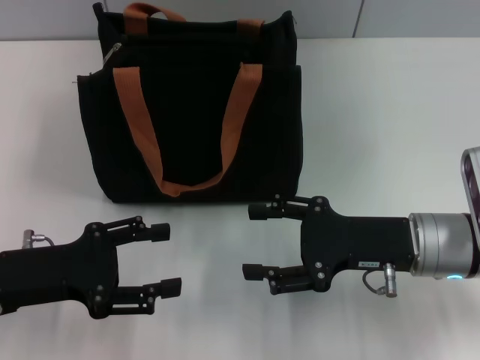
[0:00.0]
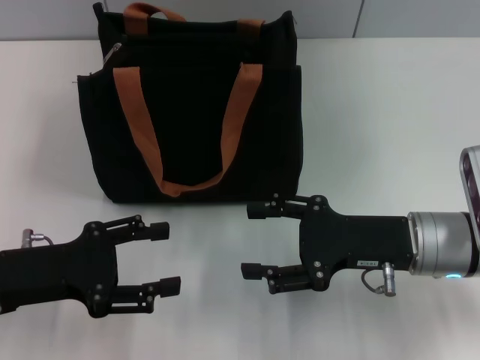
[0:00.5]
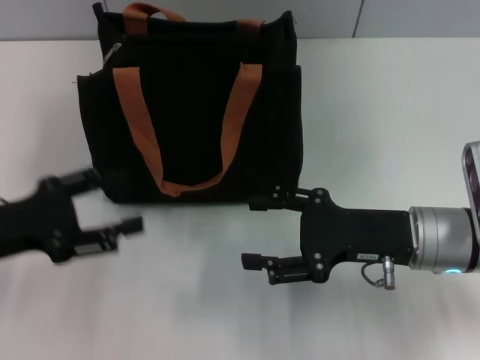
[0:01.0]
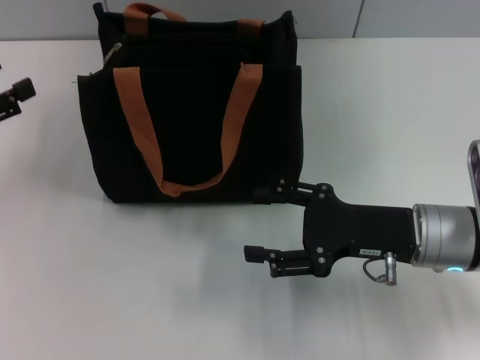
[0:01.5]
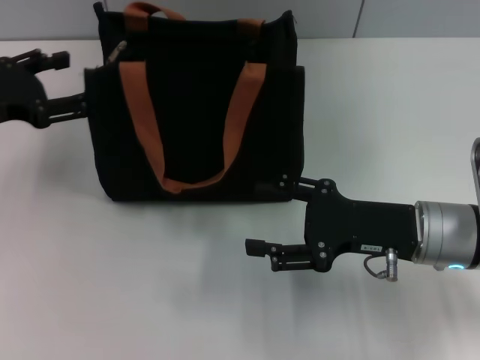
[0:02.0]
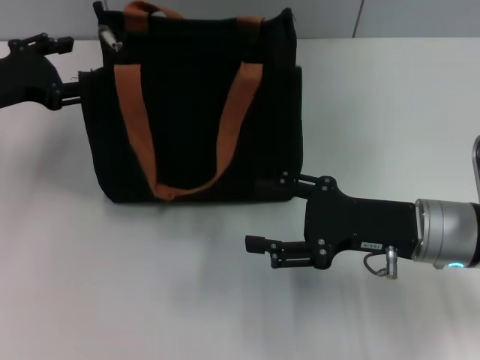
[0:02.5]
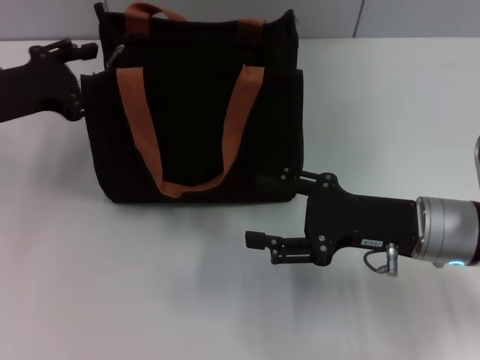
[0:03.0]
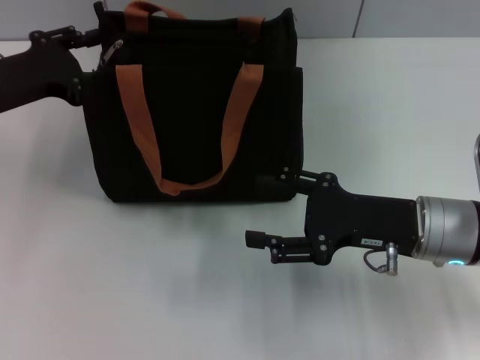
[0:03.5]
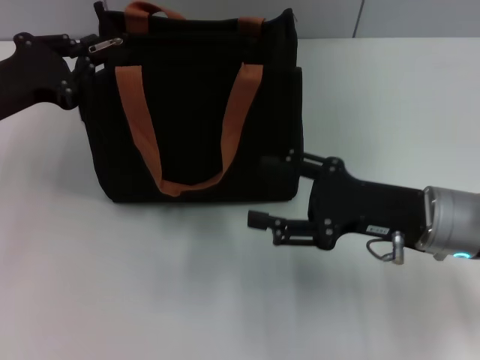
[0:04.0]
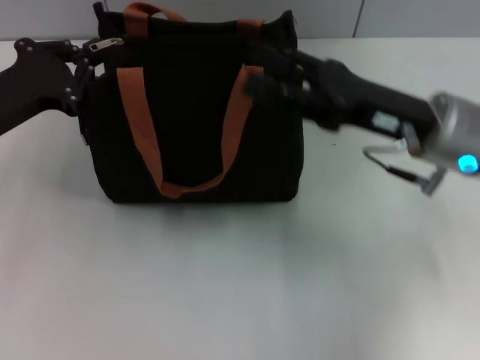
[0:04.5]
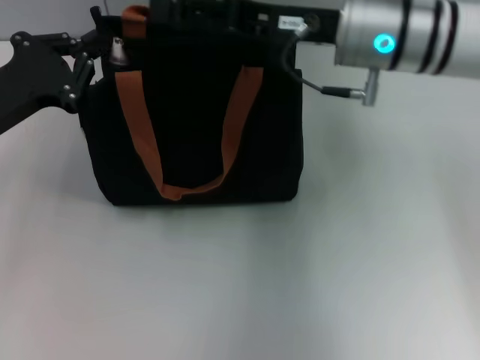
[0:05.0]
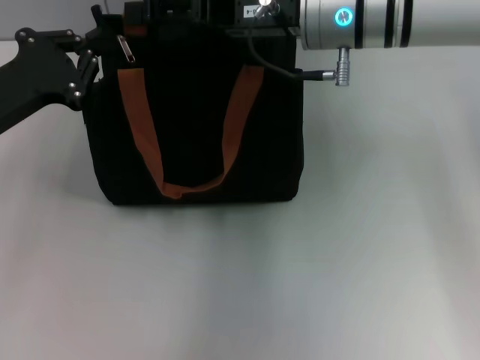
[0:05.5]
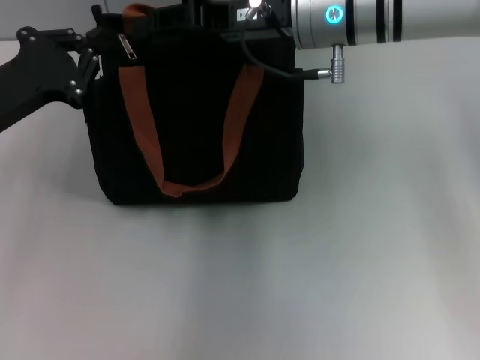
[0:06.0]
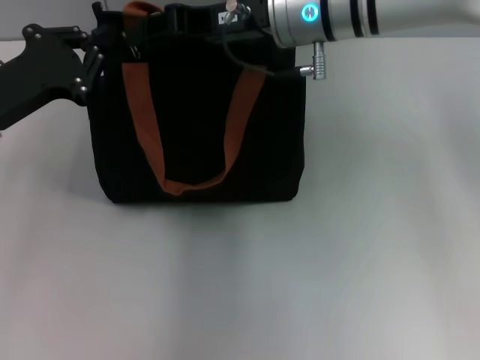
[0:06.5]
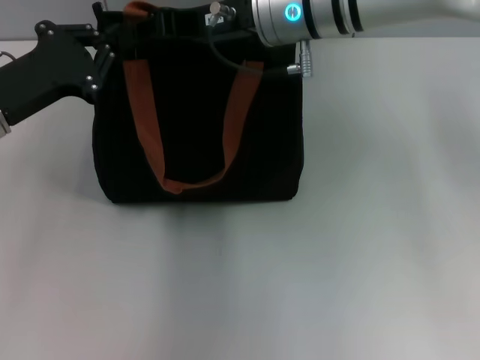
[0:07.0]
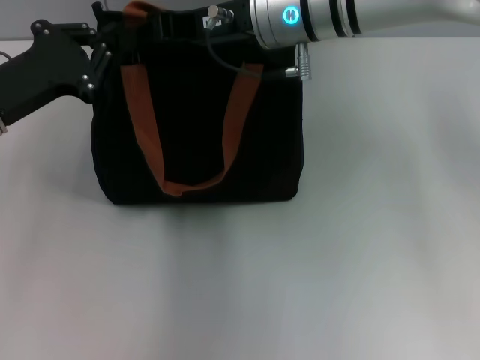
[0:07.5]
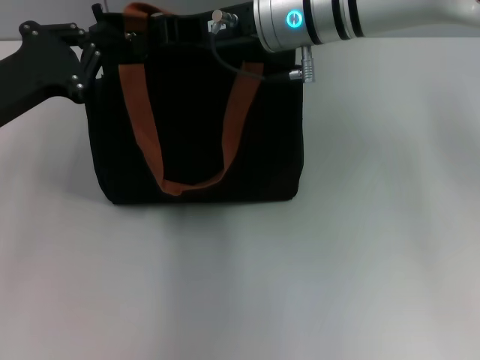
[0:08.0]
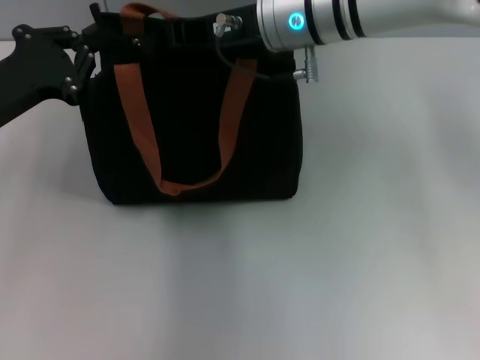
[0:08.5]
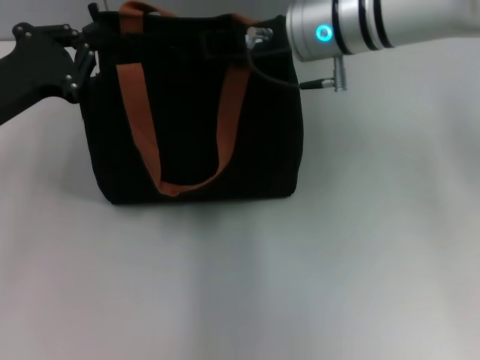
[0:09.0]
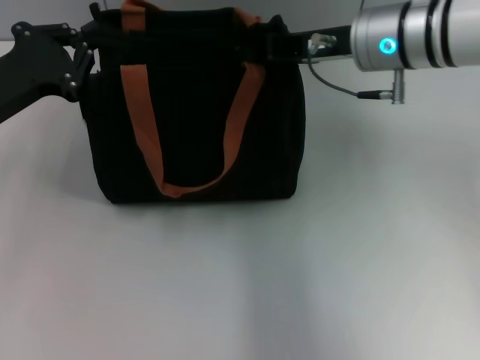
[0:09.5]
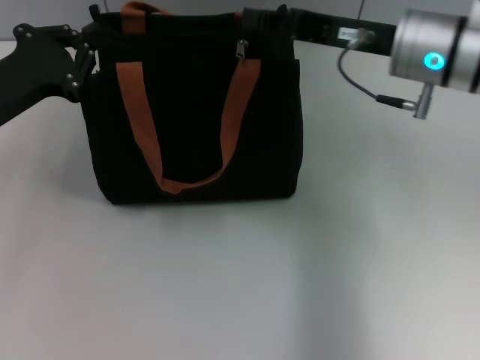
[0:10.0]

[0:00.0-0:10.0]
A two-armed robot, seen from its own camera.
Step, 0:00.0 to 0:10.0: Pull up the zipper with your right hand.
0:00.0 to 0:02.0: The left gripper heads forward, upward and to the left, covering some 15 cm.
0:02.0 to 0:04.0: The left gripper closes.
0:04.0 to 0:06.0: The right gripper moves forward, upward and to the left, about 20 cm, while the left gripper closes.
0:06.0 to 0:08.0: The right gripper closes up.
0:08.0 to 0:10.0: The right gripper is displaced to the right by roughly 10 cm.

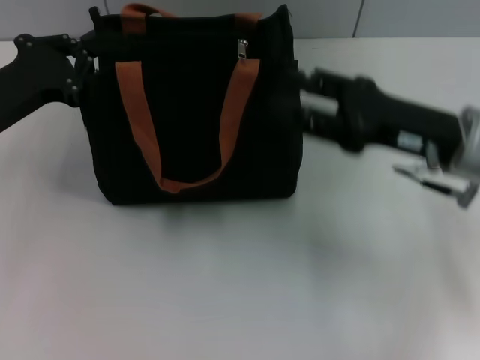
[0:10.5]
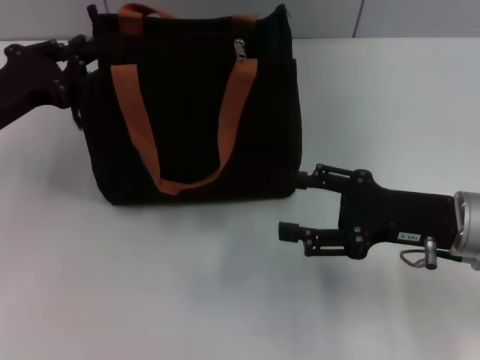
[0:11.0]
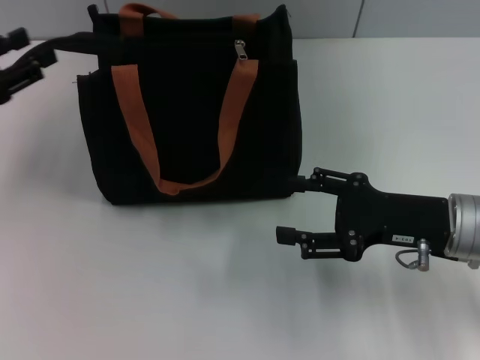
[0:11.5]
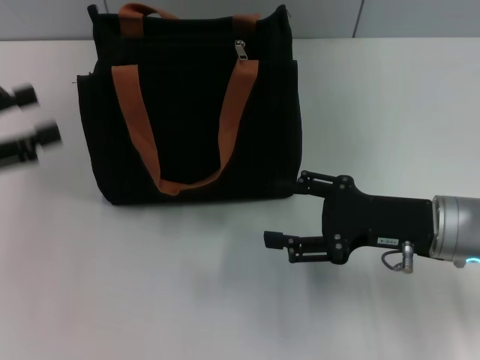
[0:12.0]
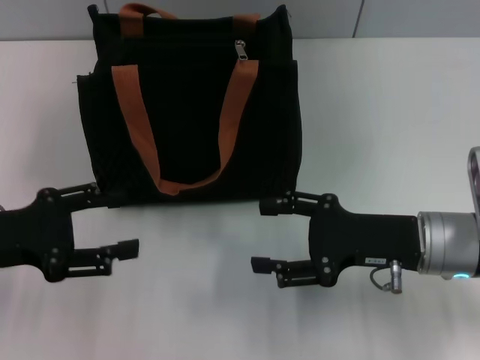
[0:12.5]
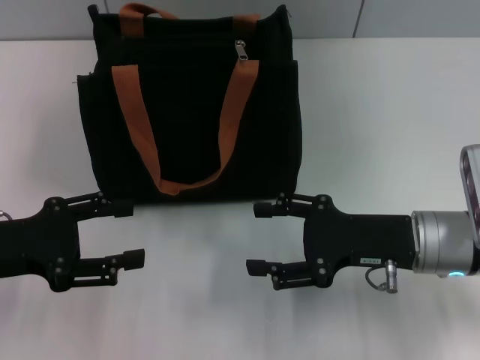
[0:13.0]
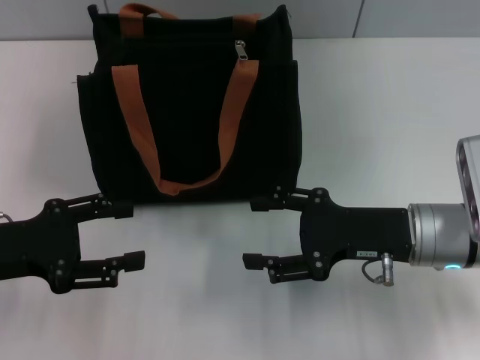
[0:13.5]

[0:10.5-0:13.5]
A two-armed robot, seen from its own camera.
Step, 0:10.5 to 0:11.5: Grab the zipper with your left hand.
0:10.5 to 0:12.0: The left gripper heads to the left and backward, covering roughly 10 cm, and opens its fingers; the right gripper changes place by roughly 5 cm, and opens.
0:12.0 to 0:13.5: The left gripper shifts approximately 5 cm to the right.

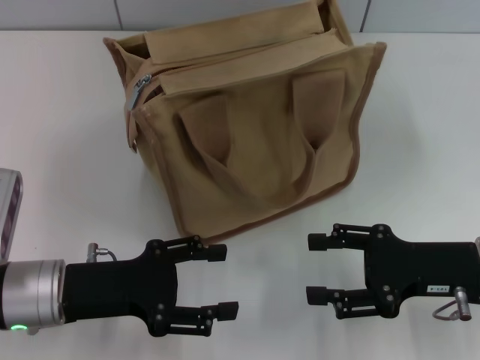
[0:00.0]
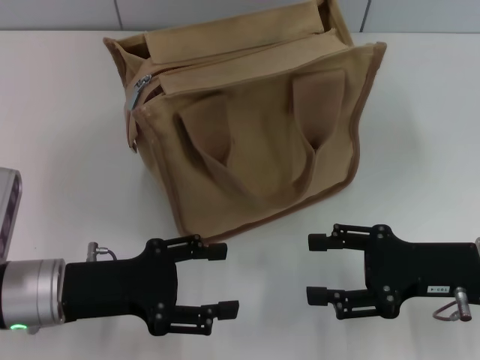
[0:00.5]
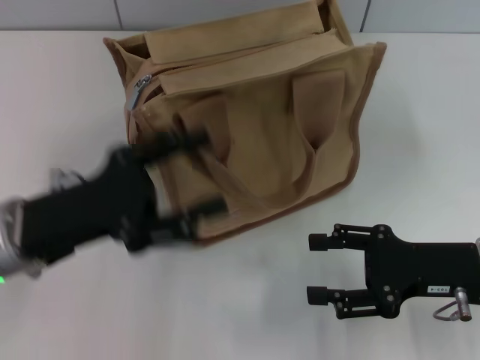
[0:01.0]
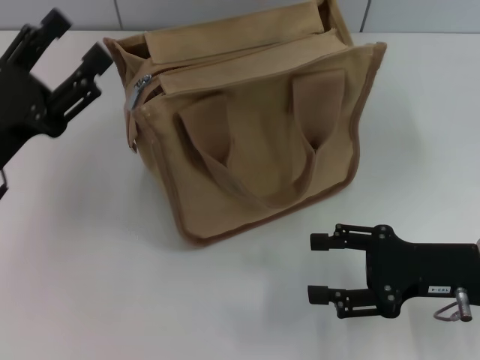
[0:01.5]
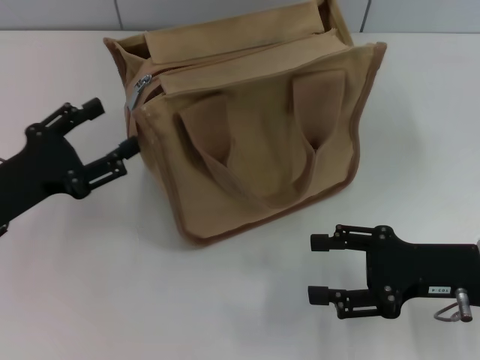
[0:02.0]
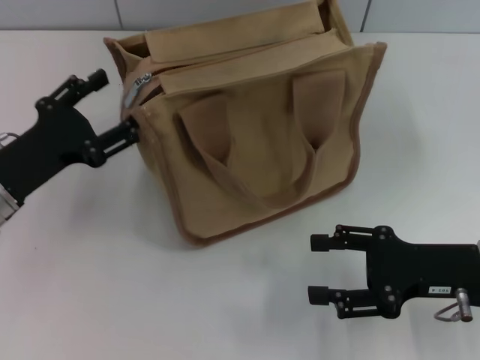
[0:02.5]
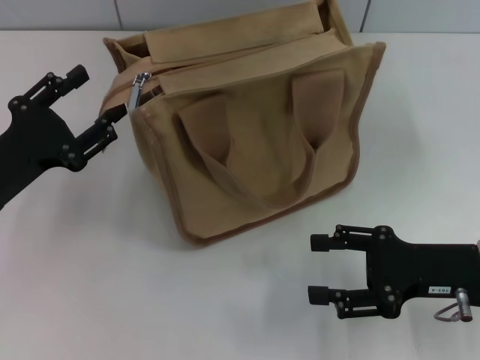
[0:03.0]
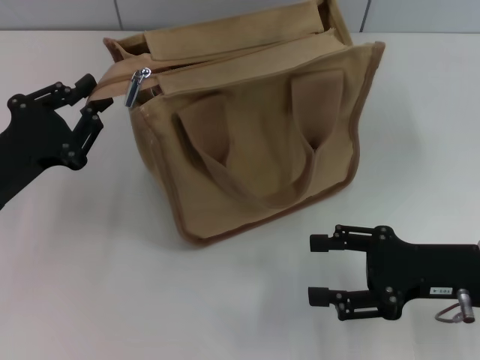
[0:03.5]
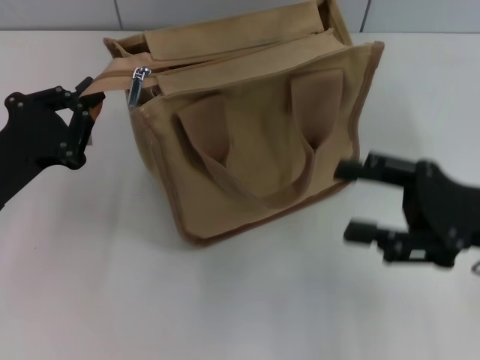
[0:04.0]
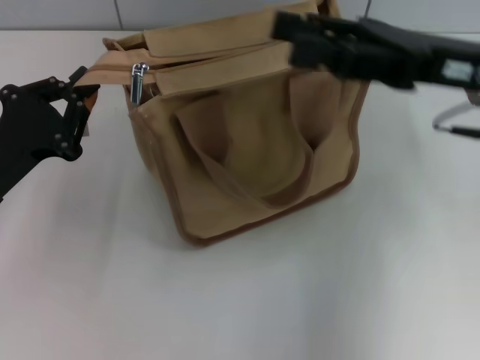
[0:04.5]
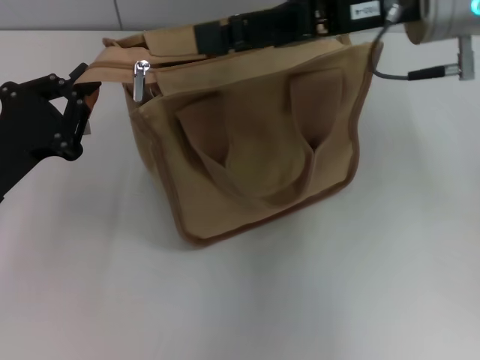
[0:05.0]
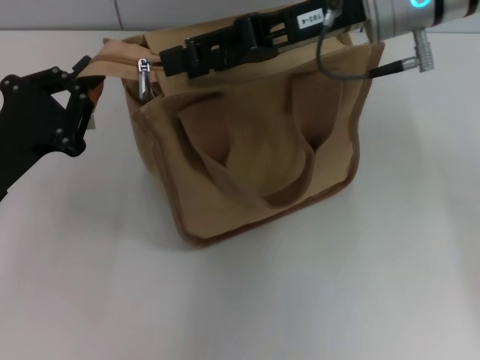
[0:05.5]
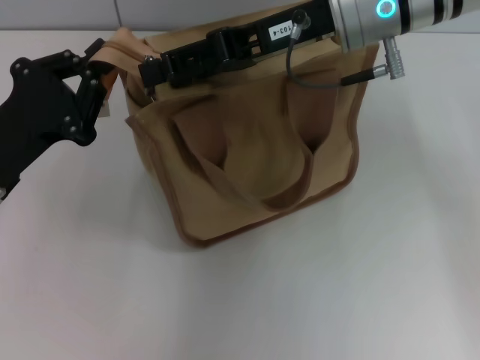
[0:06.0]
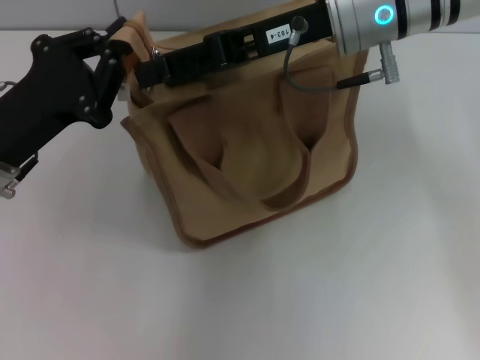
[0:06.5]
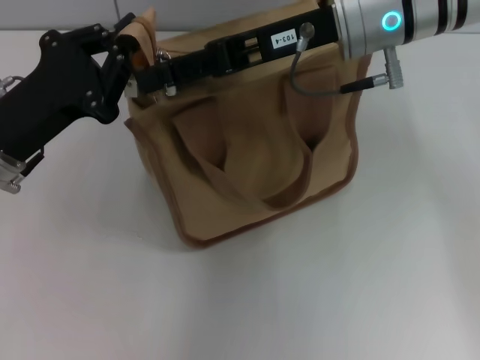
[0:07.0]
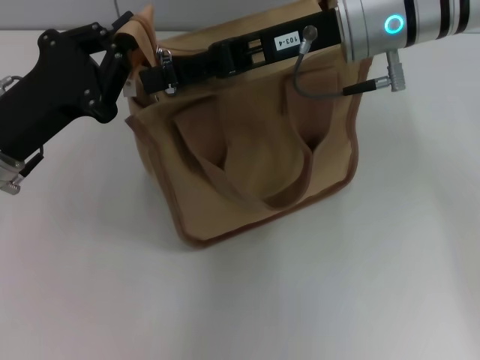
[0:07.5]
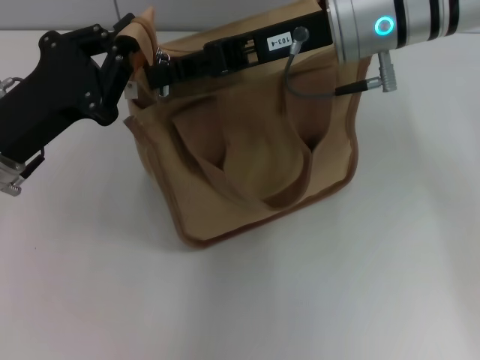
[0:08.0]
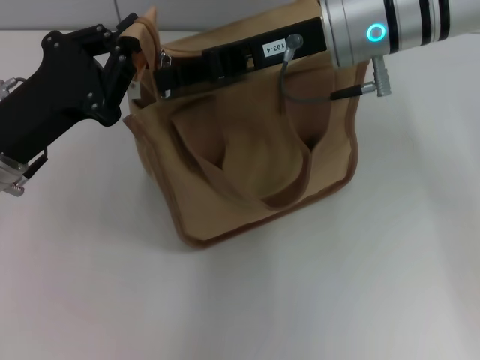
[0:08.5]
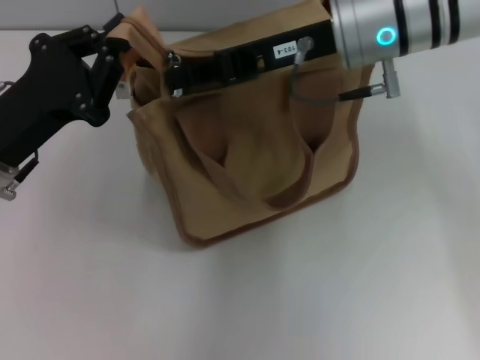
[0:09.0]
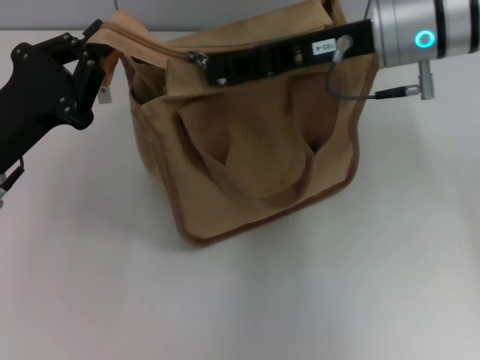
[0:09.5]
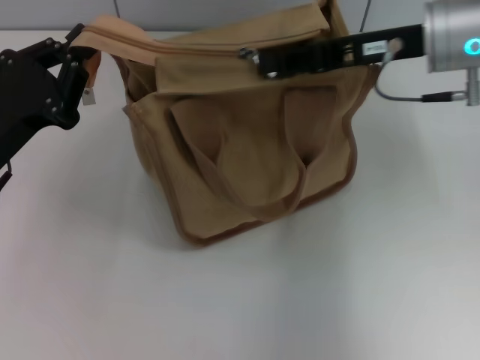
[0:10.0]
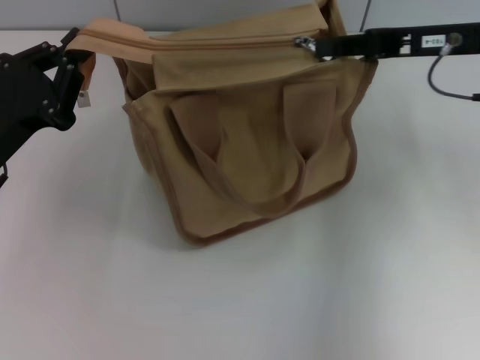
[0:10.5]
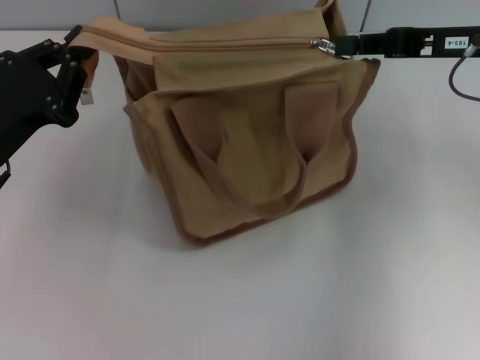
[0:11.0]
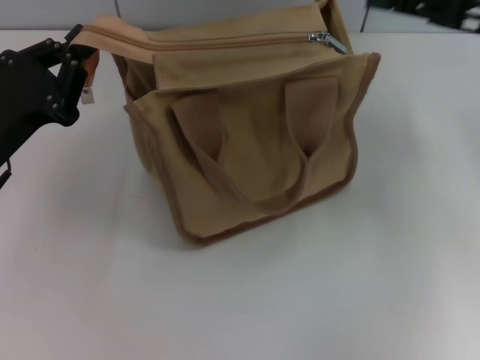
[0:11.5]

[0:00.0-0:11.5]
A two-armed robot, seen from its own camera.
Step, 0:00.0 to 0:11.0: Pull up the zipper with your right hand.
0:00.0 to 0:02.0: The left gripper heads to the left, covering roughly 5 cm.
0:02.0 to 0:04.0: The right gripper moves upward, some 5 cm. The left gripper closes up.
0:04.0 to 0:06.0: The right gripper moves to the left, forward and upward, about 25 cm.
0:06.0 to 0:07.5: The grippers make only small movements.
0:07.5 to 0:09.5: The right gripper closes.
0:09.5 to 0:11.5: The right gripper heads to the right, covering roughly 15 cm.

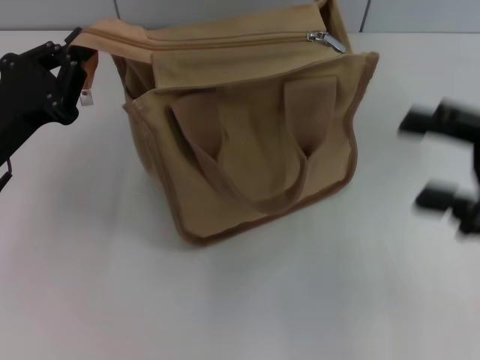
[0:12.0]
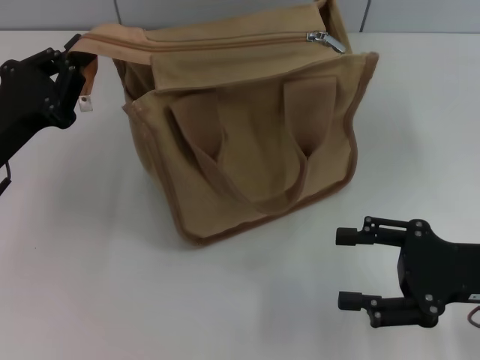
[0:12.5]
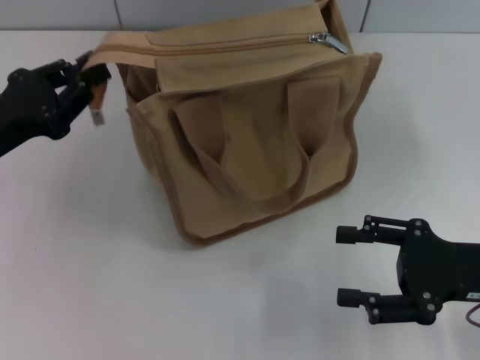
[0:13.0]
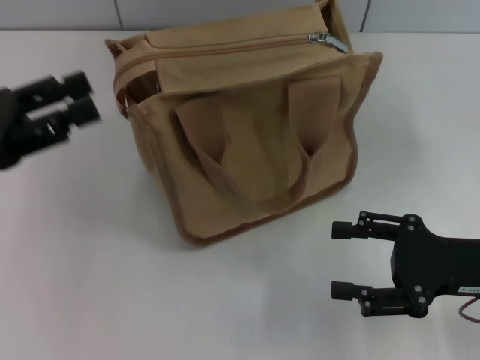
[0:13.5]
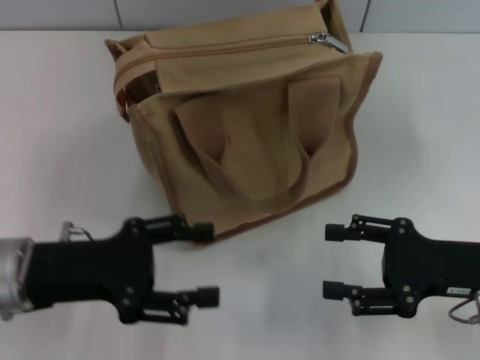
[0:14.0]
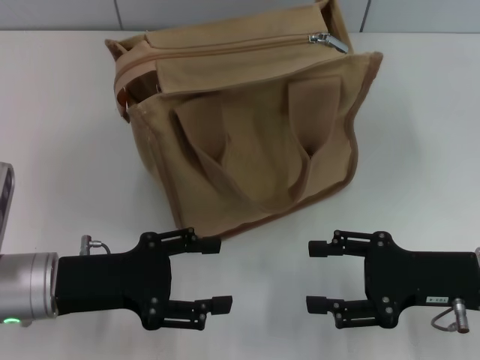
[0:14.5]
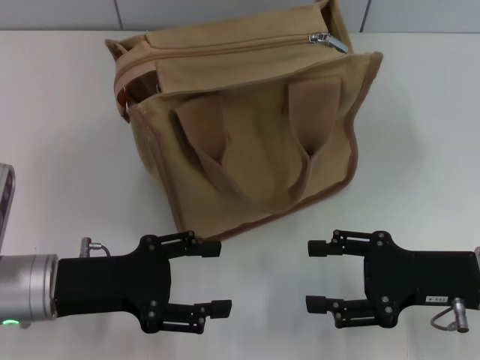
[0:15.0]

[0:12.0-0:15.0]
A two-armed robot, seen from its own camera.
Step, 0:12.0 to 0:13.0: Grab the zipper with your left hand.
0:12.0 to 0:13.5: The right gripper travels downward by about 10 cm, while the left gripper ends up some 5 cm from where it was, and opens.
0:13.5 to 0:15.0: The left gripper is displaced downward and to the right by some 10 cm, and opens its fingers.
